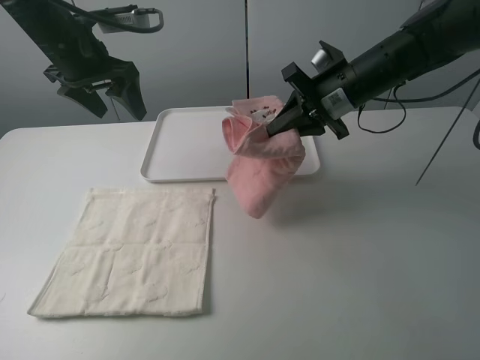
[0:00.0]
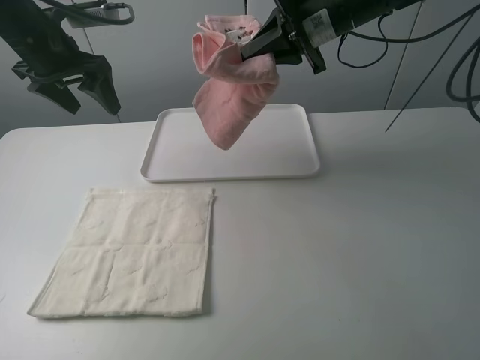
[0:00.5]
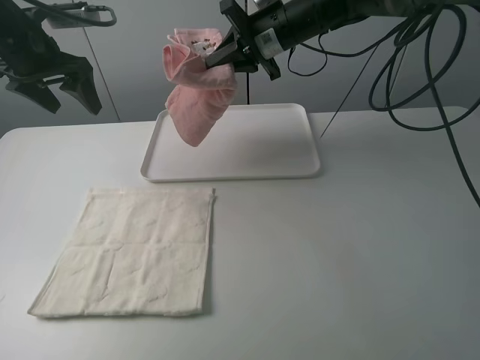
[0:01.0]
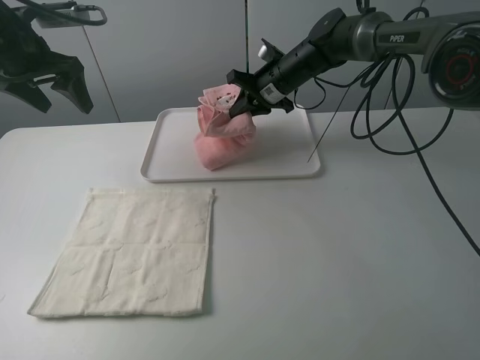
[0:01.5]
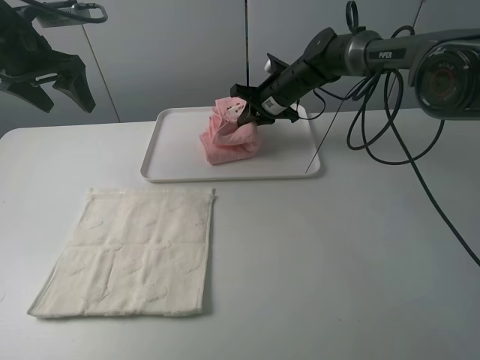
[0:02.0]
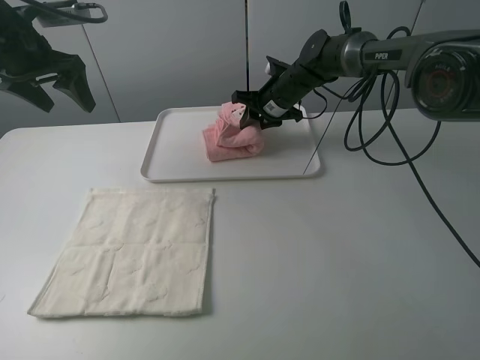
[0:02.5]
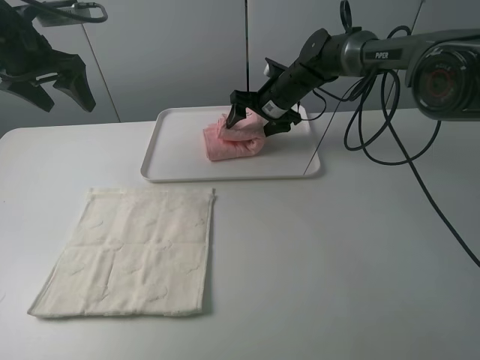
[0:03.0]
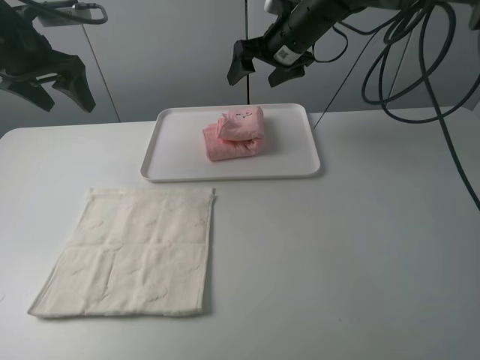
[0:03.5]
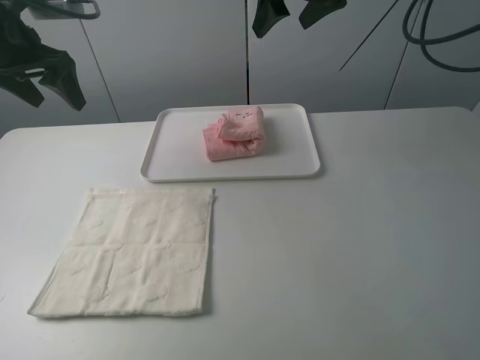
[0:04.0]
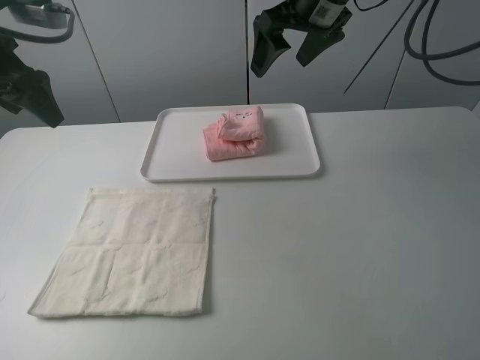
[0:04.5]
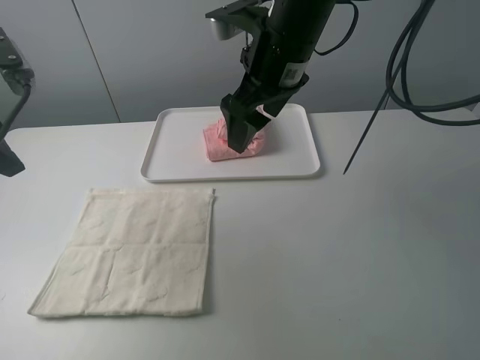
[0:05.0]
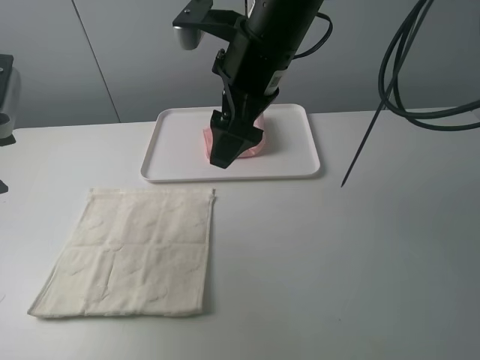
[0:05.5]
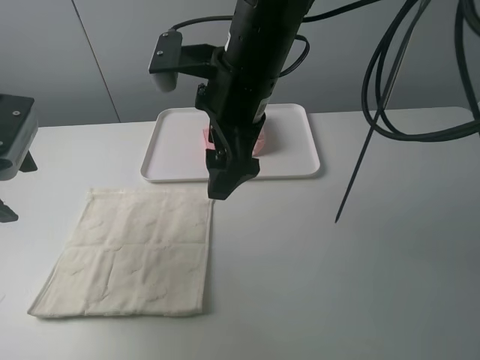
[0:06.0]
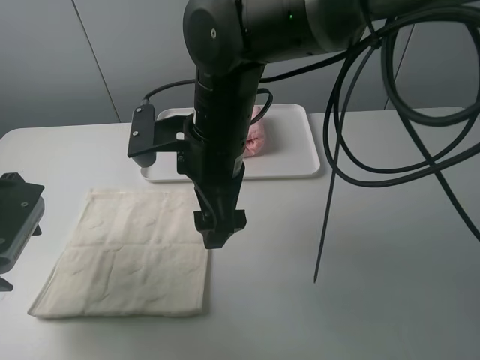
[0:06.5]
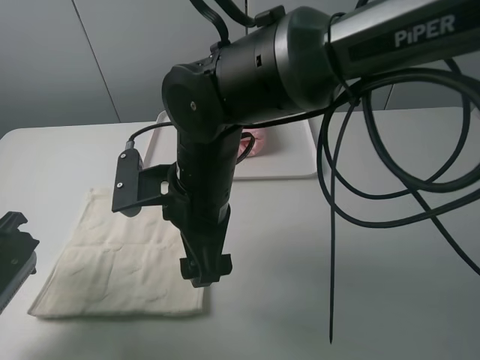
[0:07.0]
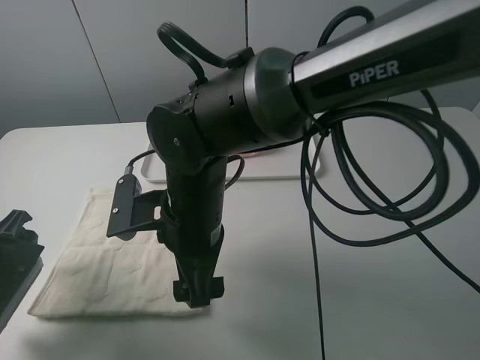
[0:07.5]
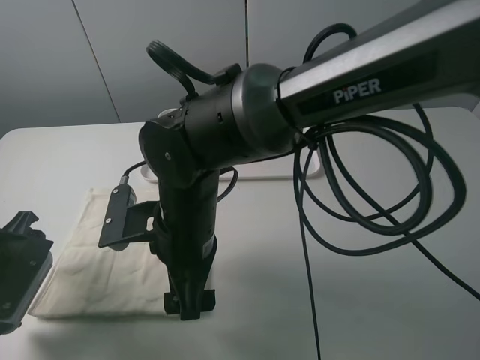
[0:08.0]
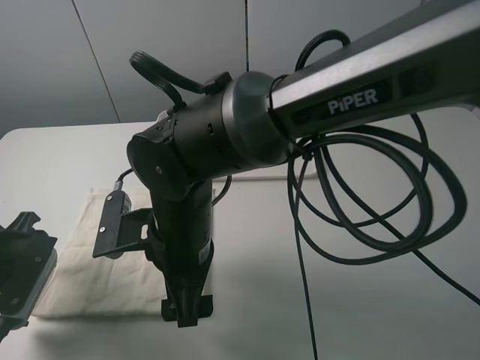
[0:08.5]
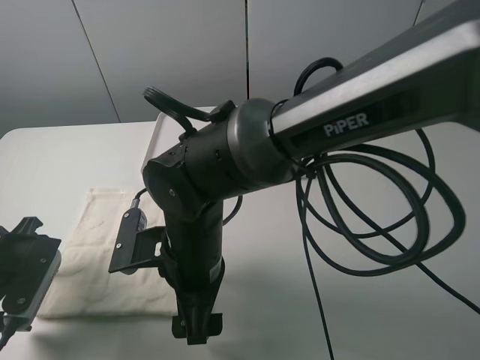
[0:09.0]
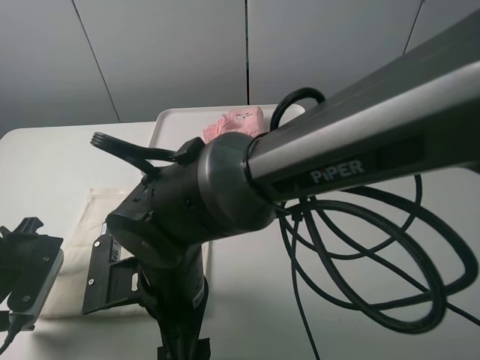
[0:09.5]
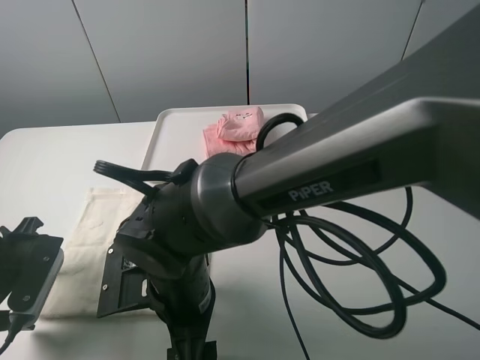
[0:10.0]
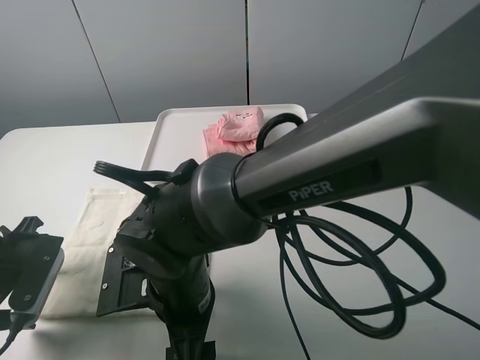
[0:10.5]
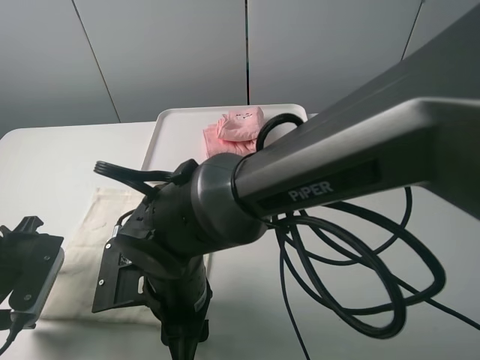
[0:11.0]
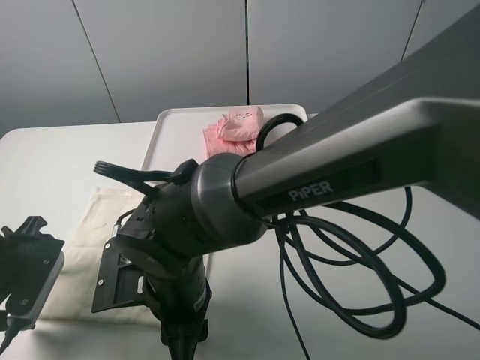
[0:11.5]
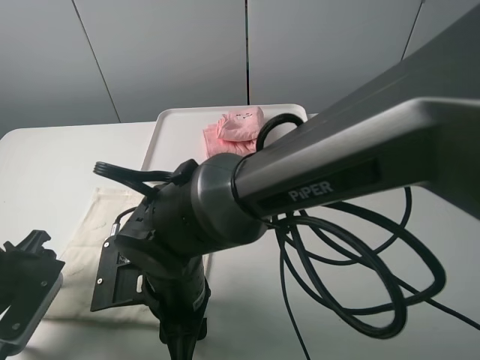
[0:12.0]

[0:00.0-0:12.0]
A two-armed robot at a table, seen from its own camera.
Task of the whole recording: fold one of the towels by two grippers and place it on the tray,then fold another towel by two grippers and place it on the folded towel.
Step, 0:00.0 to 0:03.0: Move the pink towel to the plate with the right gripper.
0:00.0 to 0:02.0: The right gripper heads forward, downward and to the left, covering some 15 cm. Meanwhile the left gripper heads to the left, covering roughly 10 cm.
0:02.0 to 0:04.0: The right gripper shifts about 20 cm upward, and opens its fingers.
0:04.0 to 0:06.0: The right gripper heads backward, to the left and downward, covering about 20 cm. Meanwhile the left gripper heads backward and downward, covering about 15 cm.
0:06.0 to 0:08.0: The right gripper heads downward, backward and to the left, covering approximately 15 cm. Meanwhile the left gripper shifts approximately 15 cm downward and backward.
0:08.0 to 0:10.0: The right gripper moves some 5 cm.
0:10.0 to 0:12.0: The right gripper closes its fingers.

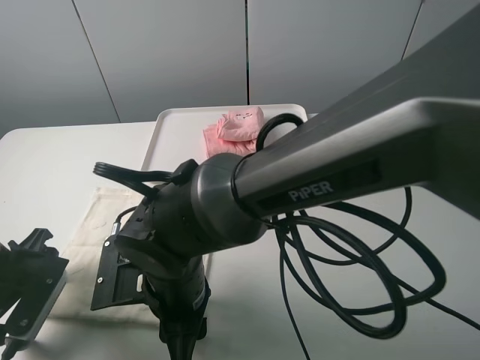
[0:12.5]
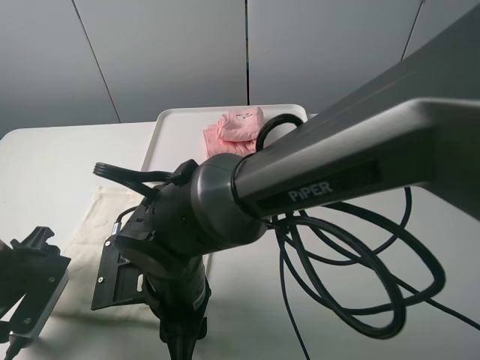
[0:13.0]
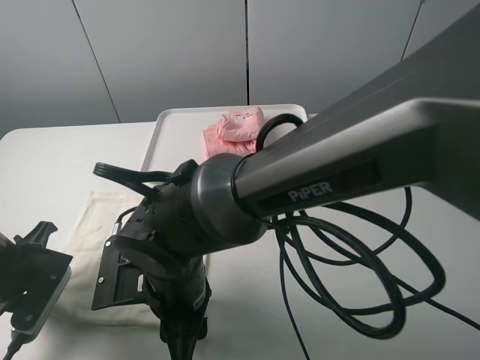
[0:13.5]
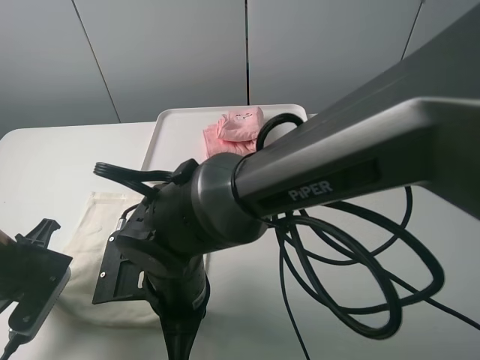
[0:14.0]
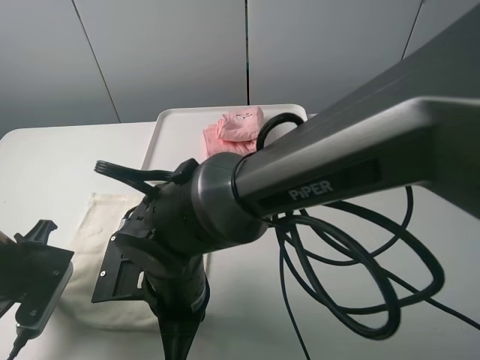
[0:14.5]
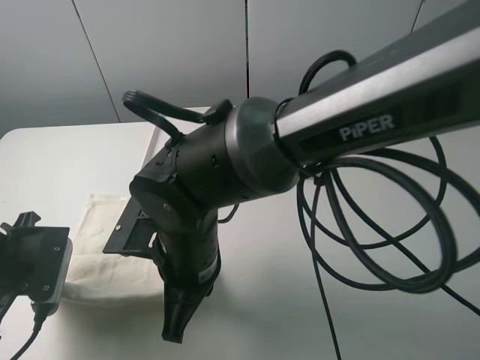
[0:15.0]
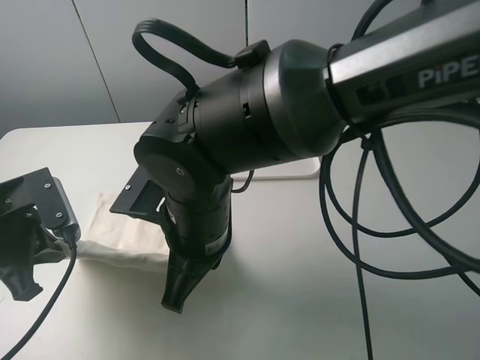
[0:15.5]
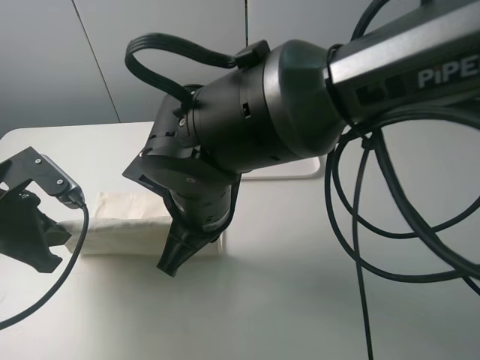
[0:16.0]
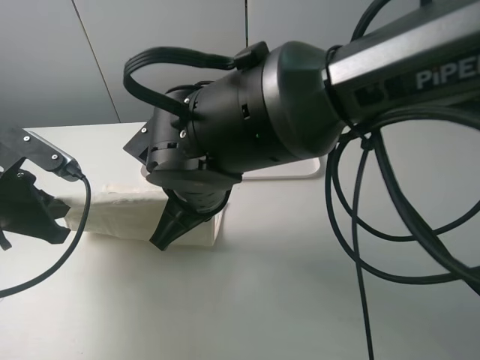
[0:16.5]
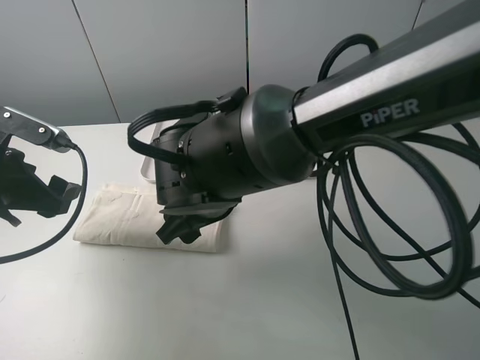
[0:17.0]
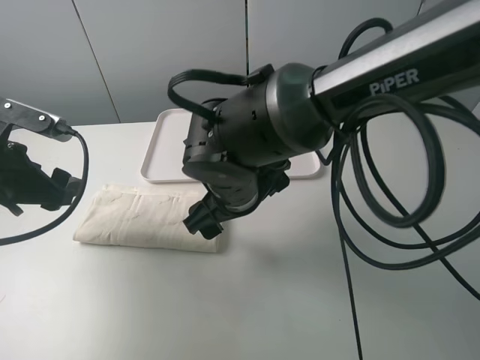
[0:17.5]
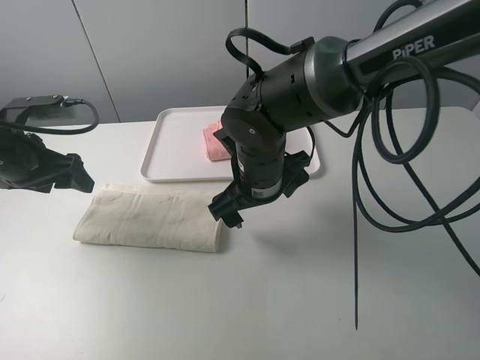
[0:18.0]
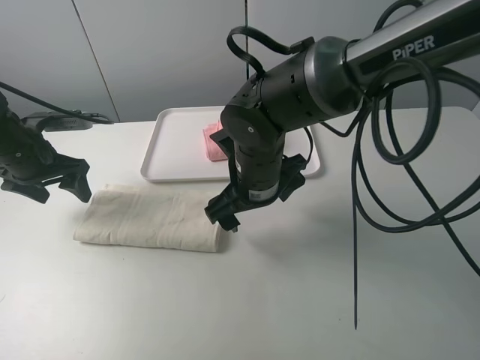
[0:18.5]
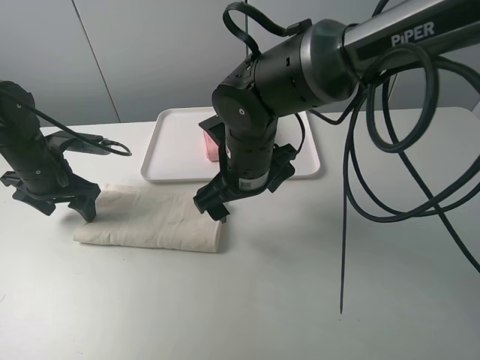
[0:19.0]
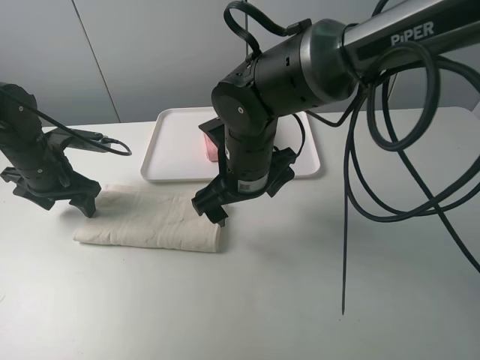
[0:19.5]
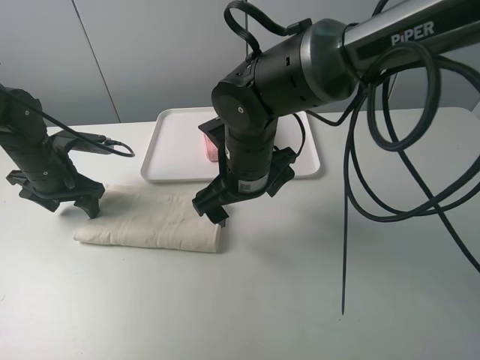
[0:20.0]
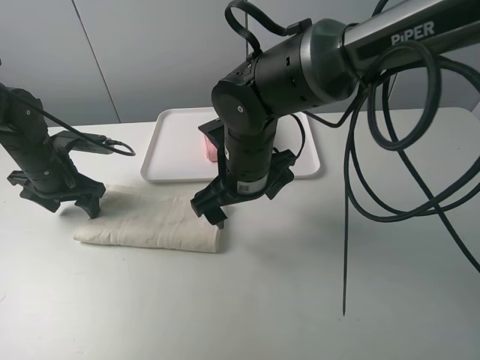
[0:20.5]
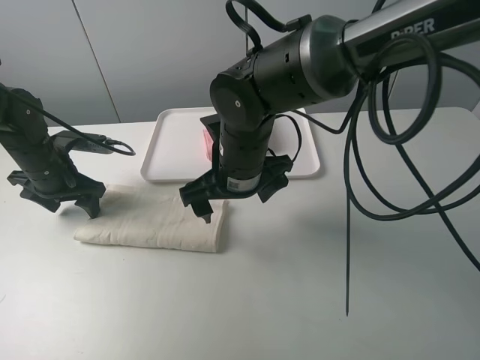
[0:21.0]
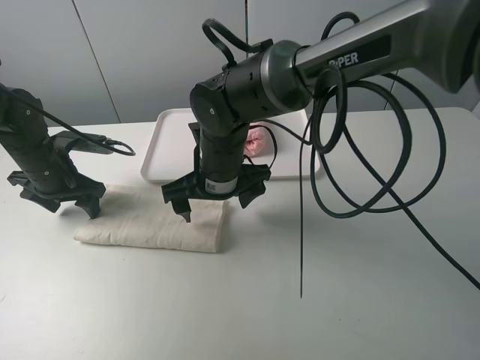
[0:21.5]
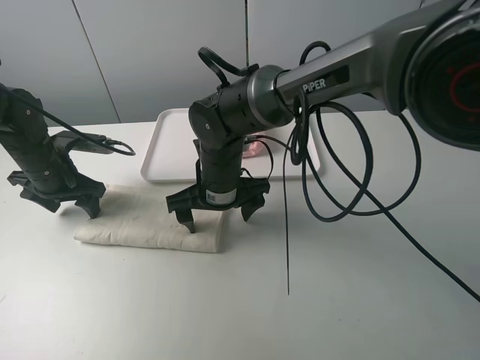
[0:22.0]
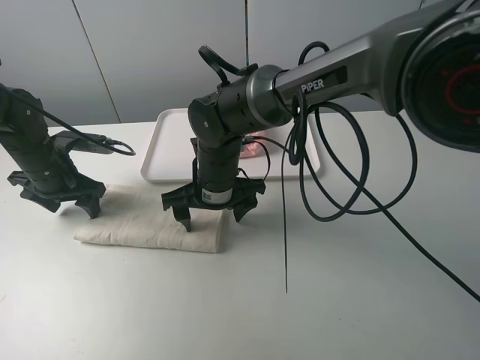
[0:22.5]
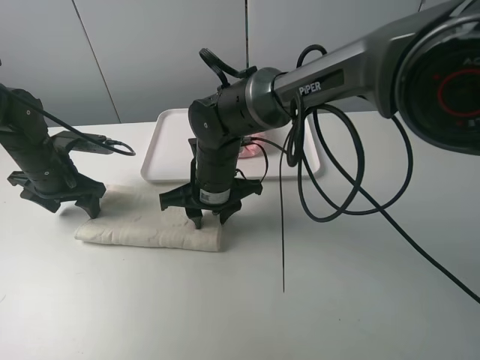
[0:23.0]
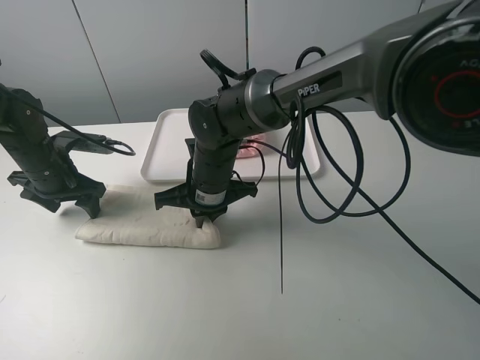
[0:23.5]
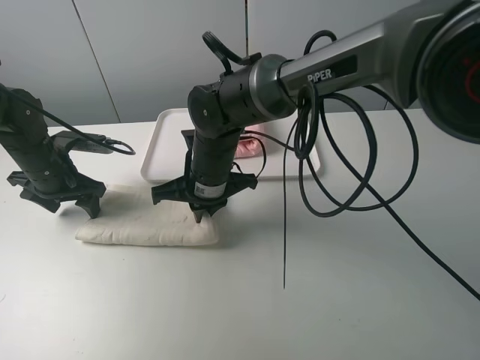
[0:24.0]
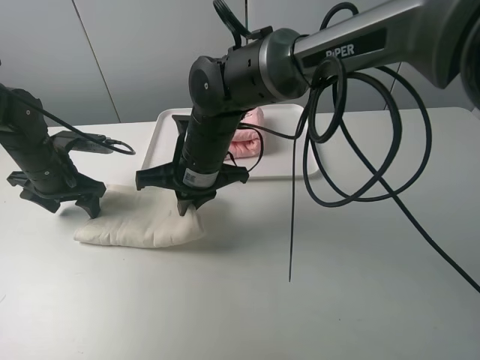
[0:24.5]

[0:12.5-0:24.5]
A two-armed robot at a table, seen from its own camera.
Task of the whole recording: fold one of the towels by two grippers and place it on the tray,then fold another towel by two grippers and place it on the folded towel.
Step, 0:14.0 to 0:17.0: Fold the white towel upwards with the left gripper.
Step, 0:17.5 to 0:19.0: Press the white towel with the left gripper.
Step, 0:19.5 to 0:23.0: Grasp the white towel with the right gripper.
0:12.5 to 0:14.5: The right gripper closes up. Meanwhile the left gripper closes.
0:14.5 to 0:16.5: The right gripper moves upward and forward, roughly 10 cm, while the left gripper is displaced upward by roughly 5 cm.
0:16.5 to 0:18.5: The left gripper heads forward, covering approximately 10 cm, and opens up; the right gripper goes approximately 10 cm forward and to the right, and opens its fingers.
0:18.5 to 0:20.5: The left gripper ends up roughly 5 cm from where it was.
0:20.5 to 0:22.5: The right gripper goes approximately 5 cm downward.
0:22.5 to 0:24.5: The right gripper ends up roughly 5 cm from where it was, and closes its fingers.

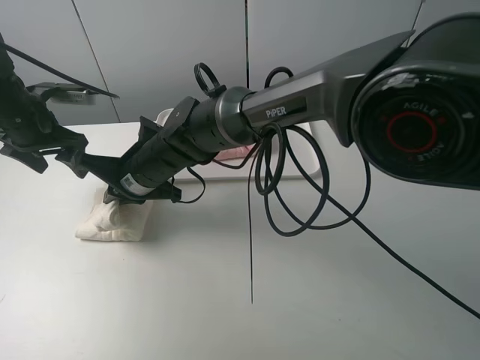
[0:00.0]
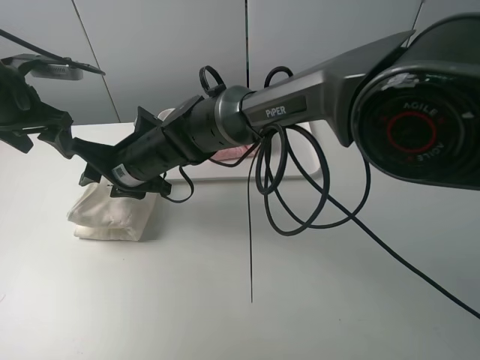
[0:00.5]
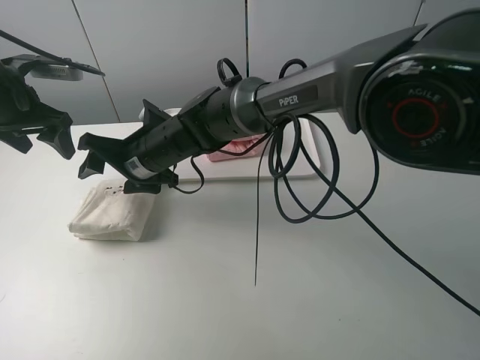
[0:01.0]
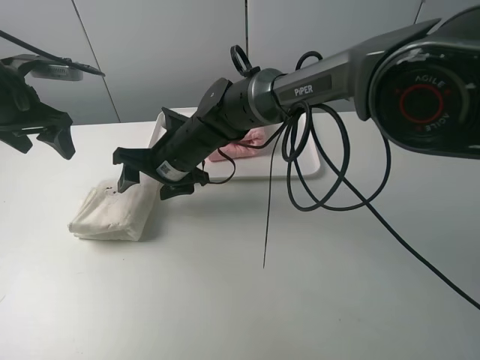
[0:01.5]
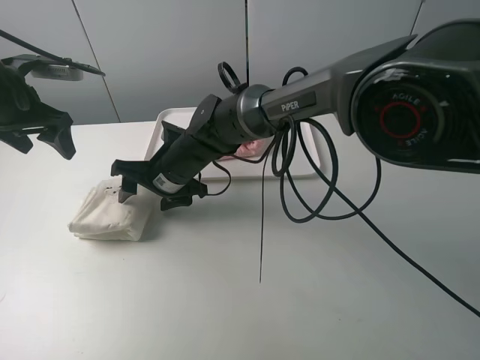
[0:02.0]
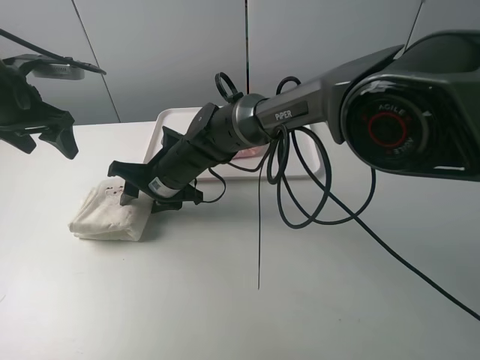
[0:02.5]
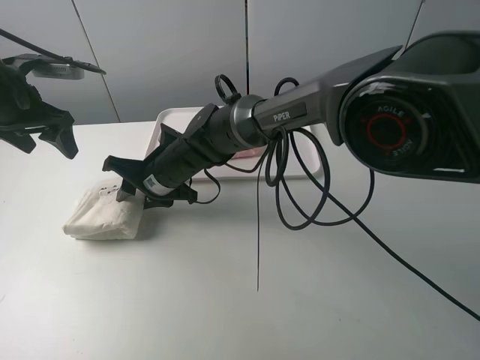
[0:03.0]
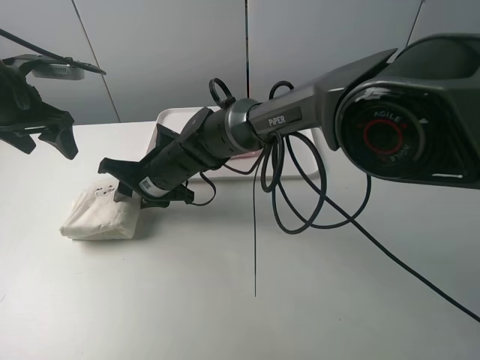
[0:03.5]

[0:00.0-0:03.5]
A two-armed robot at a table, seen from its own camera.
Task of the whole recording: fold one of the towels by two grippers and place it on the tray,then fold another towel by two grippers and place it on the folded towel.
0:00.0 to 0:02.0: The right gripper opens up.
0:02.0 to 0:03.5: There are only small adjustments of the grippers.
